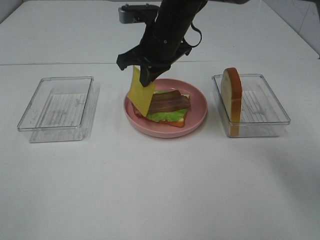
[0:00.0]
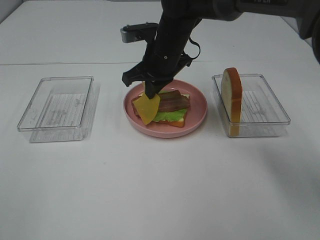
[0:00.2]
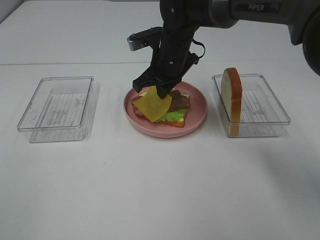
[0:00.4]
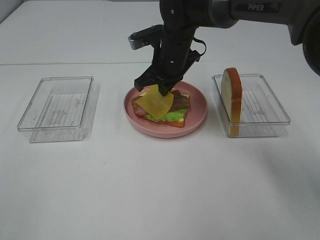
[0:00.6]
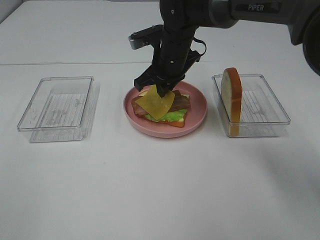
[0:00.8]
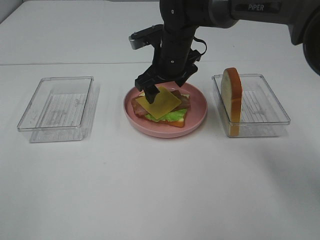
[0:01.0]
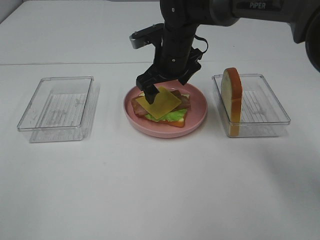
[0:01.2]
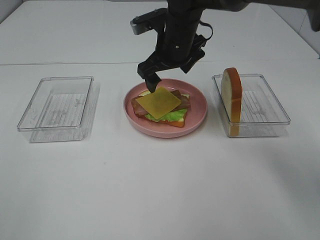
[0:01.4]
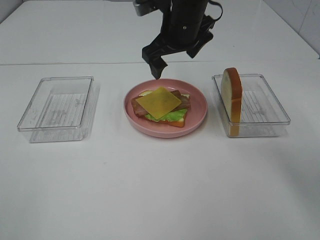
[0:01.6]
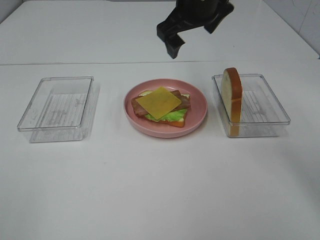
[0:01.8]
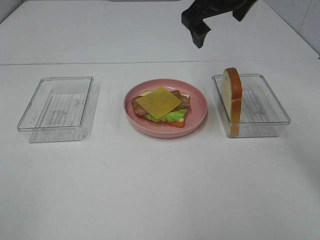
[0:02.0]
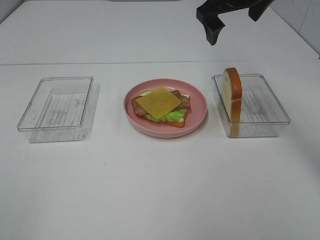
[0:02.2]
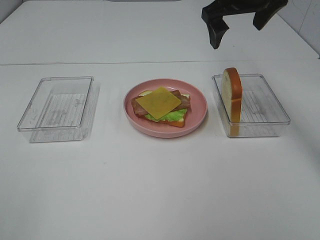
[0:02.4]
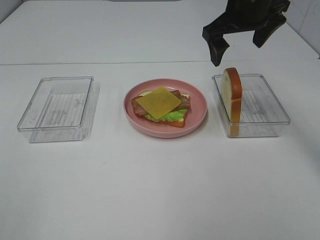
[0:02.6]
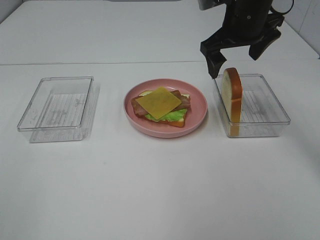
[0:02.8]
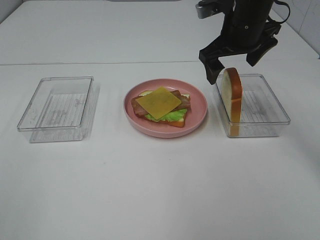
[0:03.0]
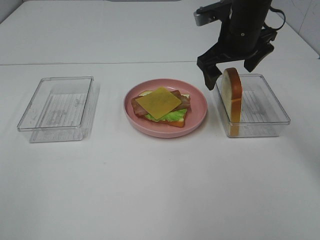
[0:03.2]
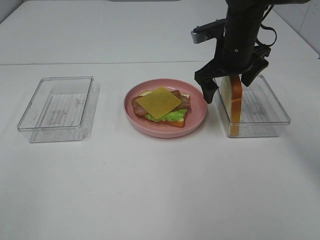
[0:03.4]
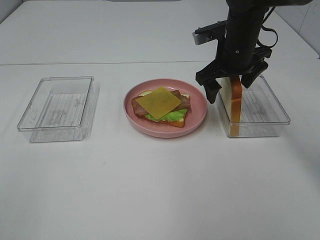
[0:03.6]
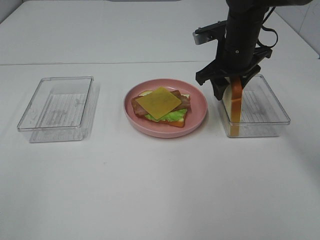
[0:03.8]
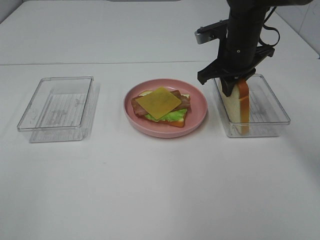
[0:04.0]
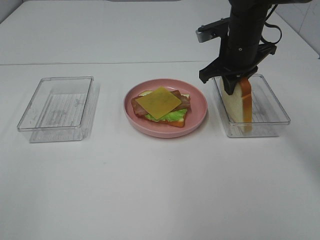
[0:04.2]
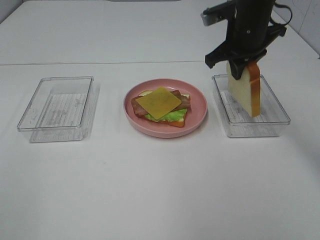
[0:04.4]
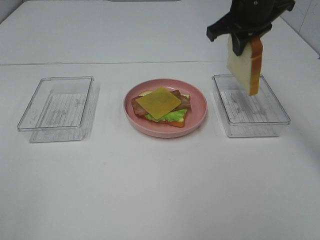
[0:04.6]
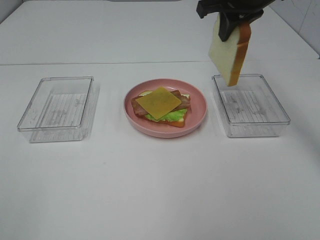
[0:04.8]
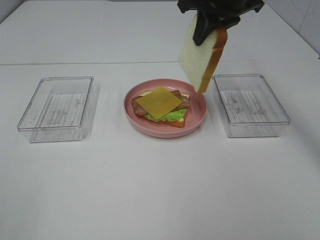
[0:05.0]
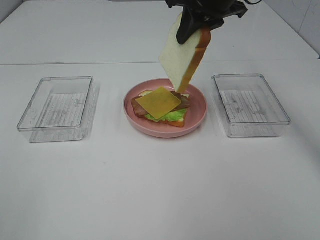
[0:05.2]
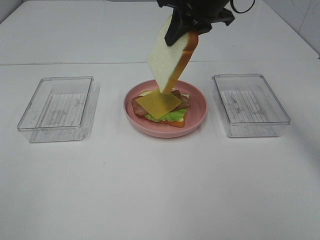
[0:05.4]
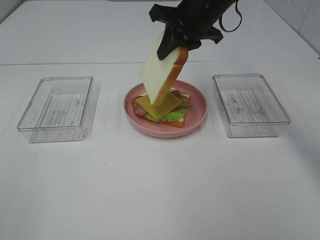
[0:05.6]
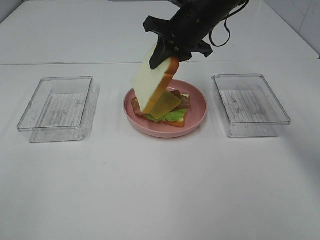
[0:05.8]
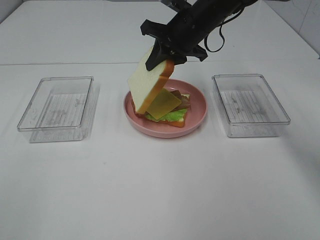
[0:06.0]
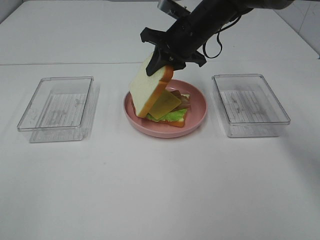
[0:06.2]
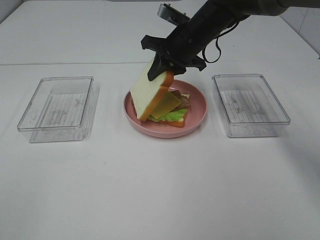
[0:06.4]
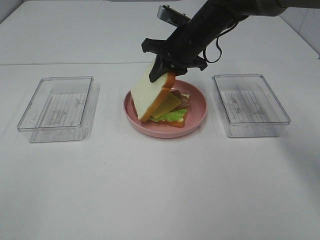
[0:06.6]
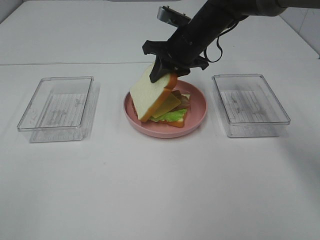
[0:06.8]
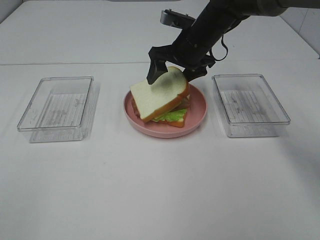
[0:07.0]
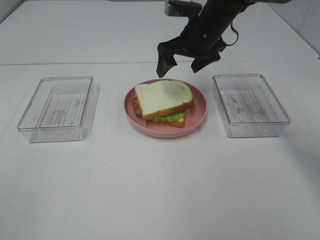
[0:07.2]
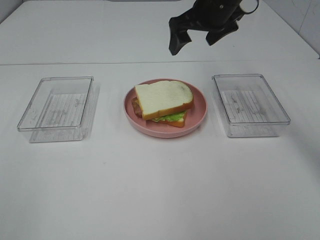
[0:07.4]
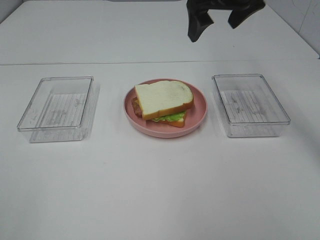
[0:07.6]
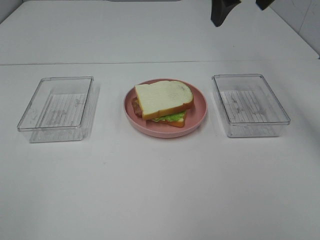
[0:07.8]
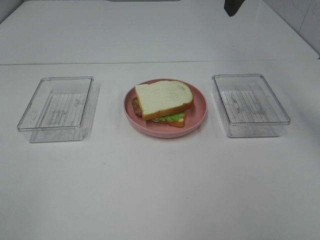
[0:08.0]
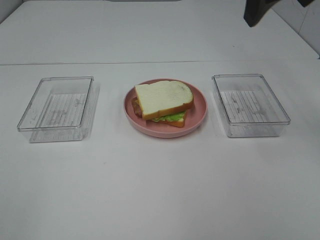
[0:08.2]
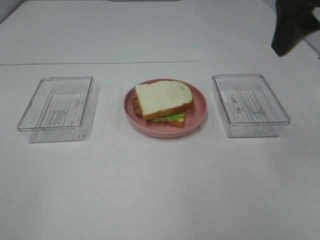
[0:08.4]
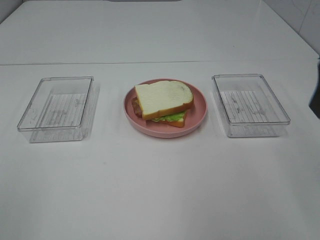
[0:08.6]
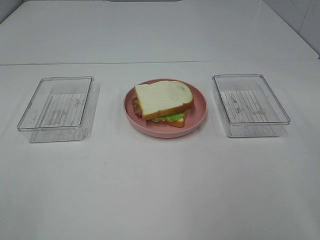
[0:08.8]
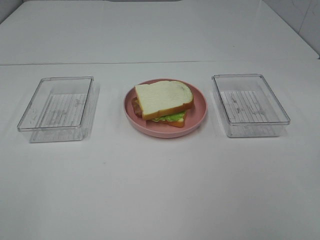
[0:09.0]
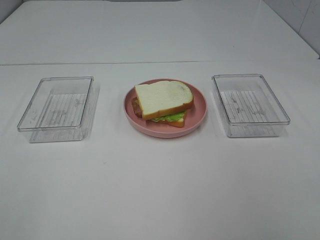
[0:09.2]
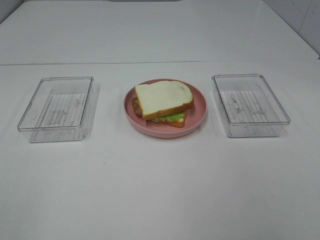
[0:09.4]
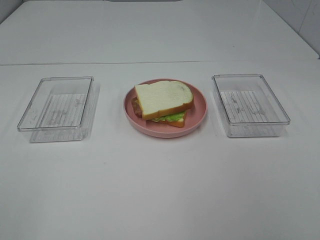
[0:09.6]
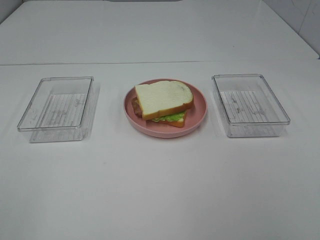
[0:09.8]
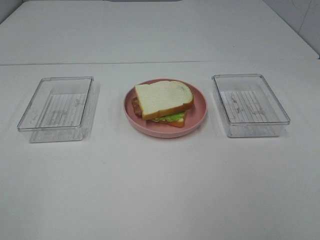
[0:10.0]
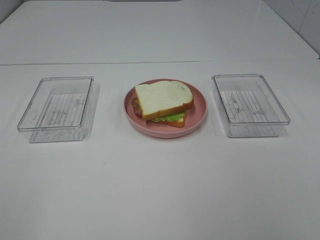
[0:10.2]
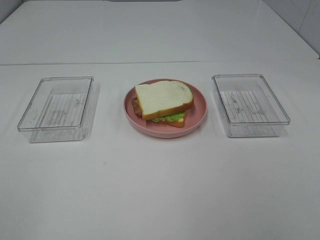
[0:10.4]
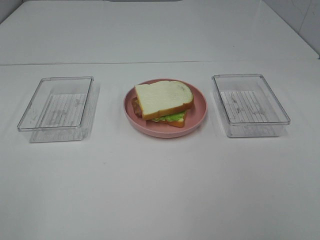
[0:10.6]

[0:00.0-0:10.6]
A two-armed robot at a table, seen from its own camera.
Task of the whole recording: Make sandwiches.
Step, 0:01.6 to 0:04.0: Right hand:grab the bread slice.
Step, 0:04.2 to 0:07.2: Right hand:place the bread slice on the cheese slice.
0:00.0 to 0:01.6: The right gripper opens.
0:01.6 to 0:03.0: The right gripper heads to the right, covering roughly 10 cm.
0:03.0 to 0:04.6: The right gripper closes.
0:04.6 to 0:06.0: The right gripper heads to the left and downward, covering about 10 cm.
0:06.0 to 0:07.6: The right gripper heads upward and to the right, covering some 10 cm, and opens.
0:07.6 to 0:09.0: The right gripper goes some 35 cm backward and to the right.

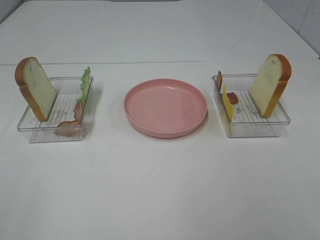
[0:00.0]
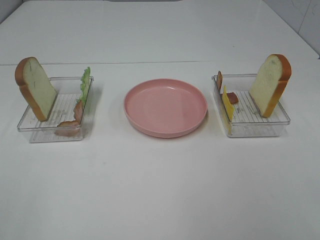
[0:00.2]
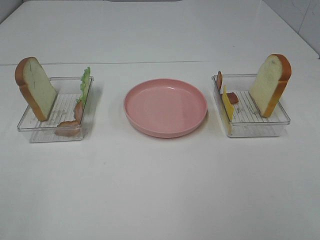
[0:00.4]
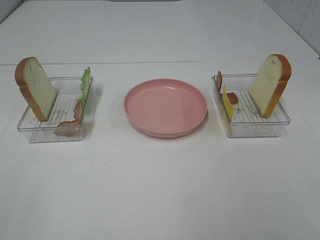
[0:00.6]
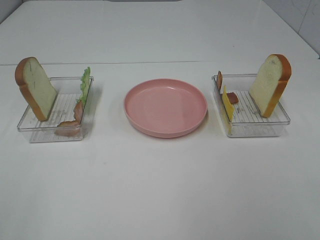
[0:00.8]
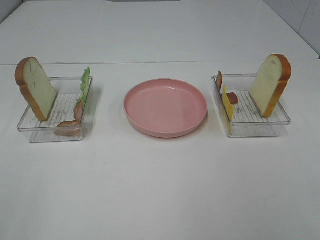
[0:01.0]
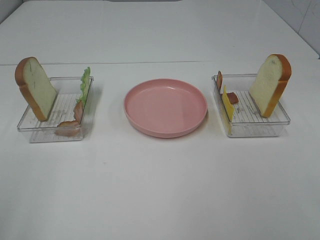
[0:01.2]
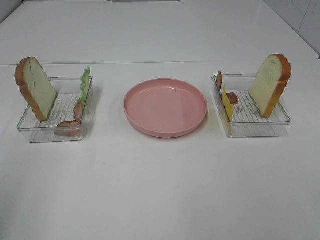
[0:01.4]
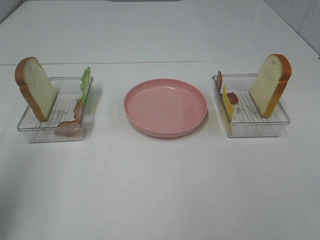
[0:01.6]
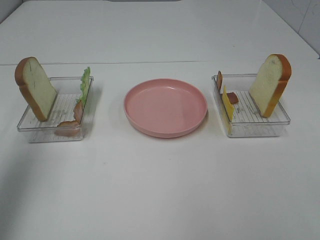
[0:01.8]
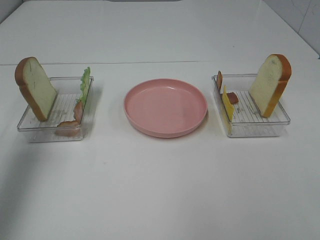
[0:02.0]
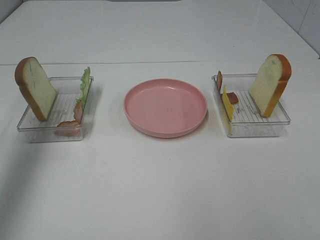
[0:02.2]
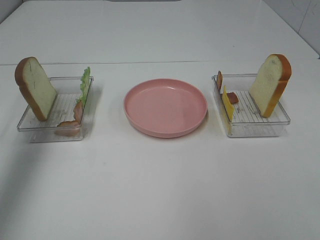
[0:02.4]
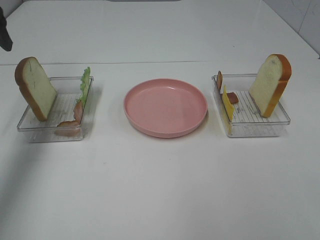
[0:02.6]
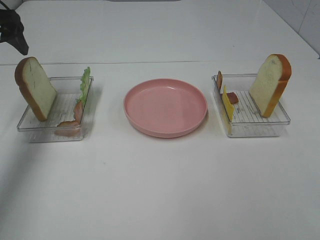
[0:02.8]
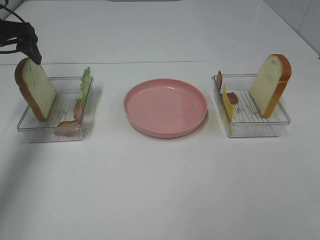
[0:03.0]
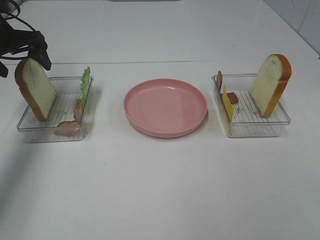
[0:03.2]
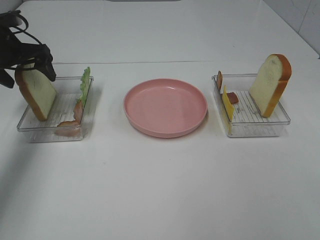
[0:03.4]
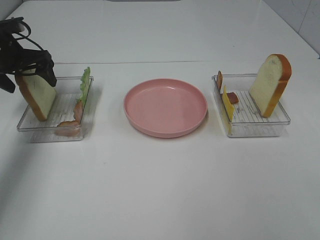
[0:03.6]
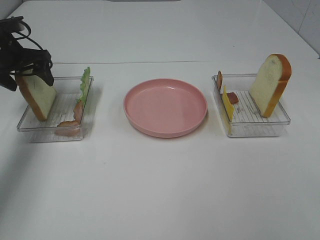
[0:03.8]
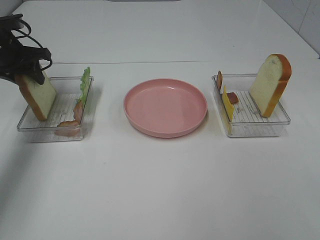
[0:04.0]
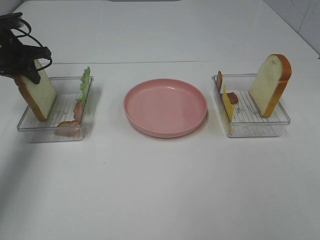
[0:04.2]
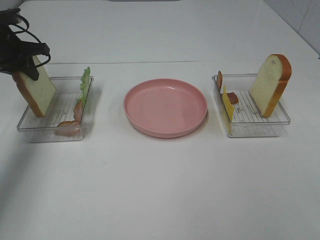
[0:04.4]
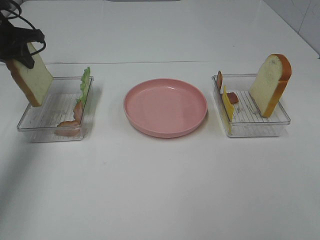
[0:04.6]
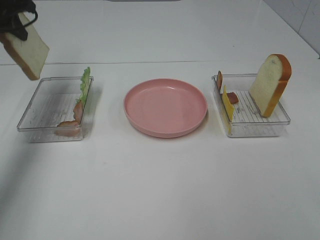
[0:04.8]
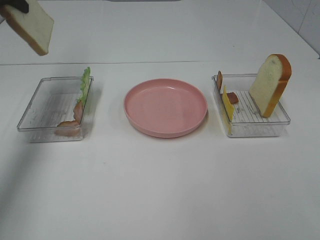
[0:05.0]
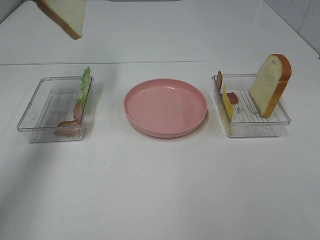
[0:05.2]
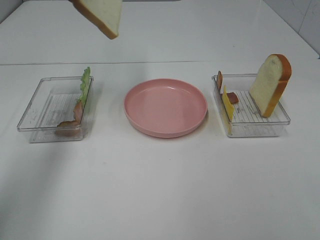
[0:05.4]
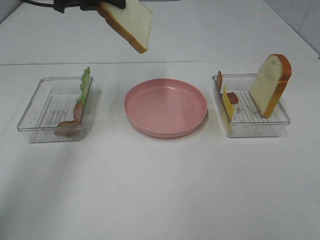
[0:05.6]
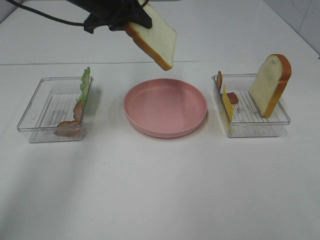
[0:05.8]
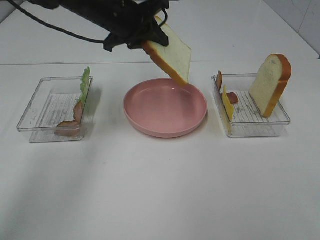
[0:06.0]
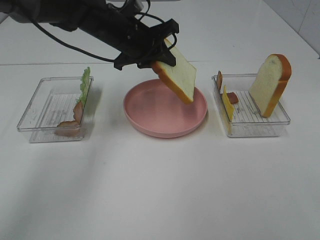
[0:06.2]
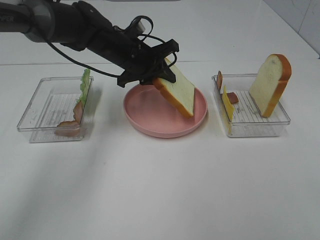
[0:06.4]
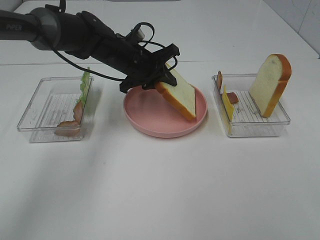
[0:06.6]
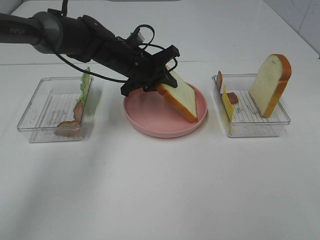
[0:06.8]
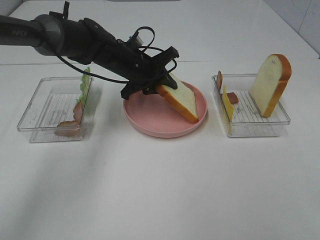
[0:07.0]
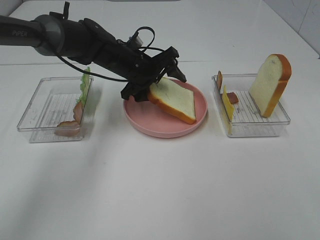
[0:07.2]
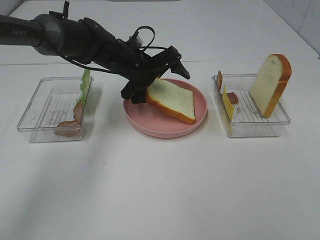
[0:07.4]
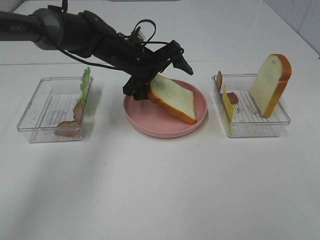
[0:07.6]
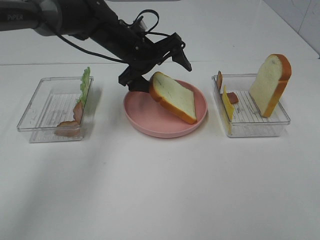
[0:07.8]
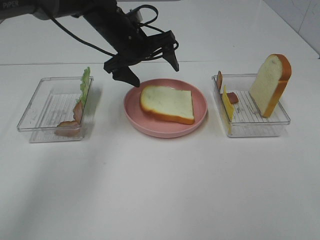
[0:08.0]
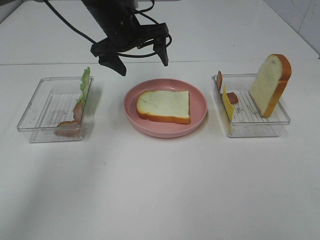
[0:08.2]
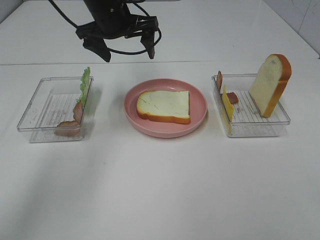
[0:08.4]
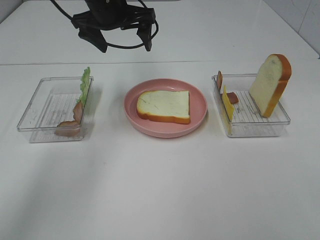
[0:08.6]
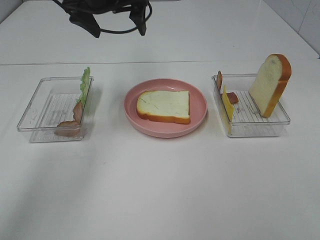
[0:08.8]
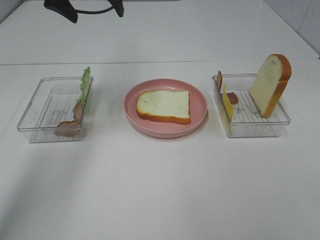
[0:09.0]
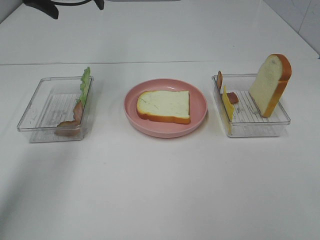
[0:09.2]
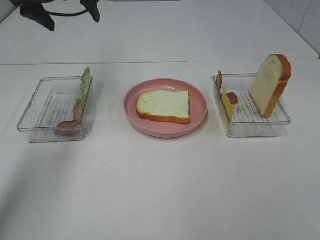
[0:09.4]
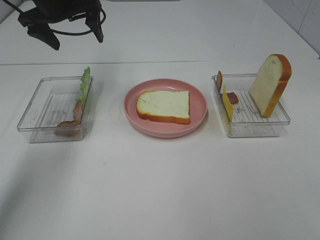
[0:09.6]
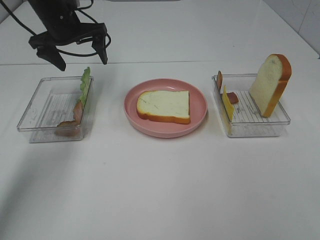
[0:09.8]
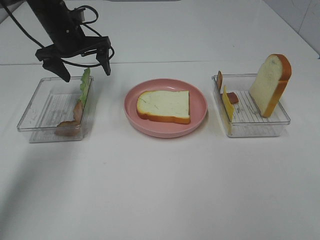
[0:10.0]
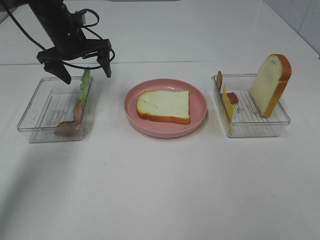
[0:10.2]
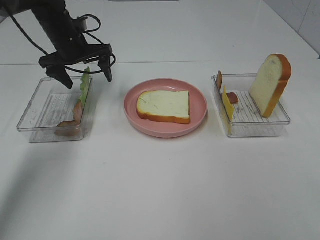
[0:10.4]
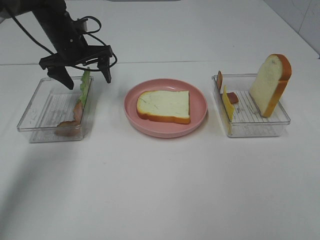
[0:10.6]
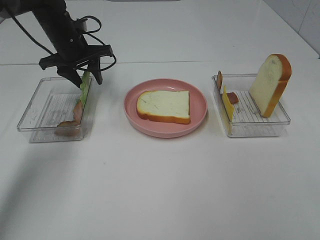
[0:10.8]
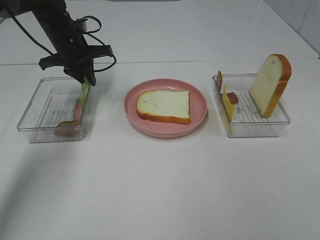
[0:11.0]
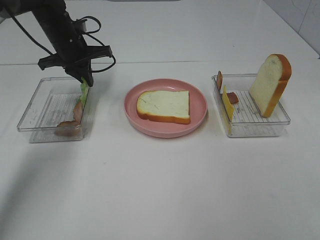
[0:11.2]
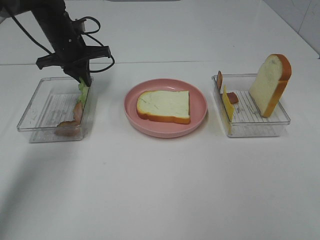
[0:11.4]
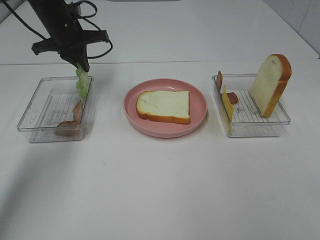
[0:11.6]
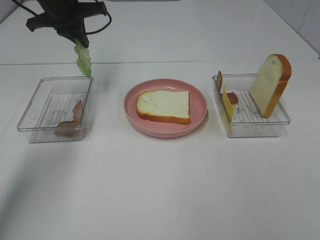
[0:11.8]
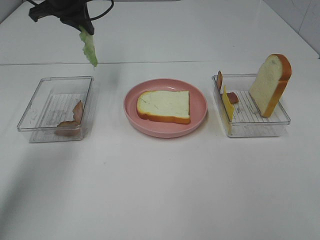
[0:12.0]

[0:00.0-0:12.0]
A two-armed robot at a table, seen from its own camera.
Task of the whole recording: Make sandwiches.
Step, 0:00.0 to 0:04.4: Left hand:grab the bread slice.
Step, 0:04.6 to 0:08.2: Left hand:place the bread slice on the plate.
Step, 0:08.4 to 0:11.4: Left hand:grab the lettuce slice.
0:00.0 to 0:01.6: The left gripper shifts roughly 15 cm forward and upward.
0:01.6 to 0:03.0: The left gripper heads forward, covering some 30 cm.
0:03.0 to 0:04.4: The left gripper moves about 5 cm, and closes up.
0:04.4 to 0:06.0: The left gripper is displaced to the right by some 25 cm.
0:06.0 to 0:07.6: The left gripper goes some 10 cm downward, and opens up.
0:07.6 to 0:09.0: The left gripper goes about 20 cm upward and to the left.
0:09.0 to 0:10.4: The left gripper heads downward, covering some 15 cm.
0:10.4 to 0:12.0: The left gripper shifts approximately 10 cm upward, and closes.
